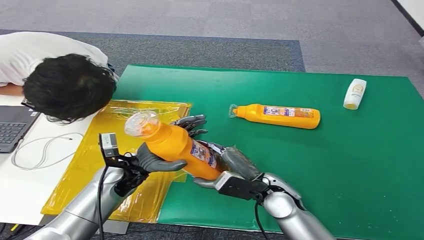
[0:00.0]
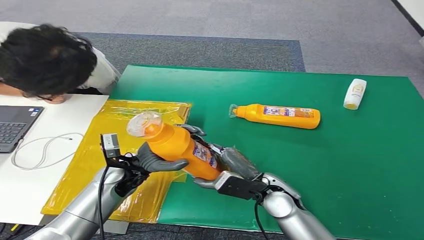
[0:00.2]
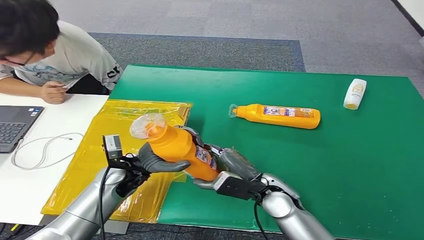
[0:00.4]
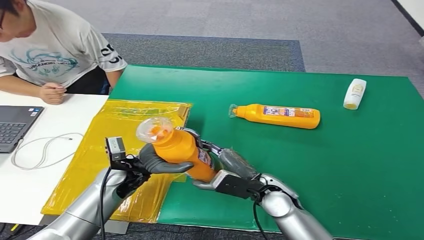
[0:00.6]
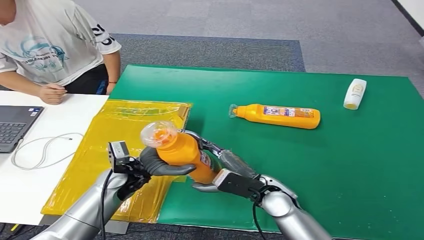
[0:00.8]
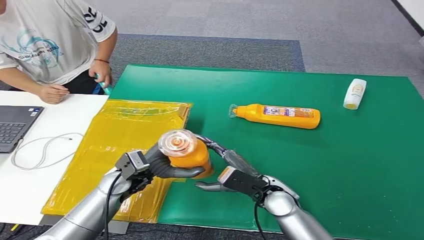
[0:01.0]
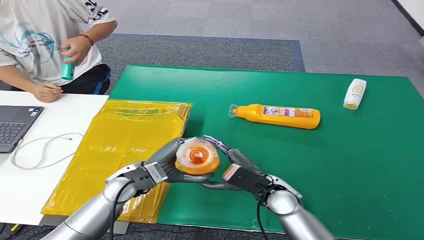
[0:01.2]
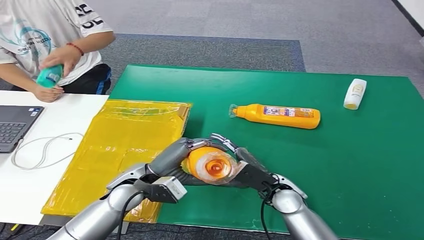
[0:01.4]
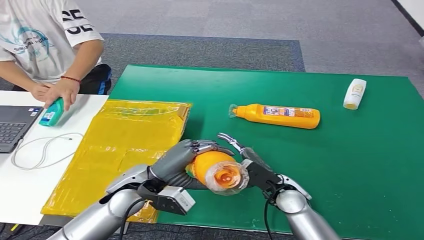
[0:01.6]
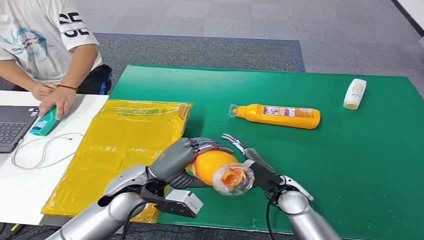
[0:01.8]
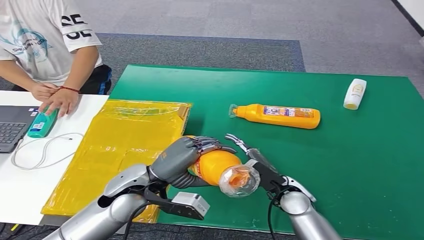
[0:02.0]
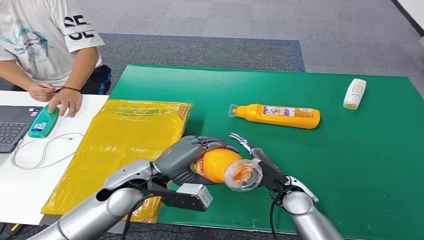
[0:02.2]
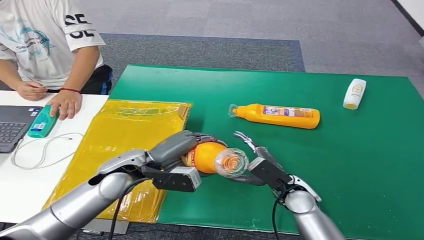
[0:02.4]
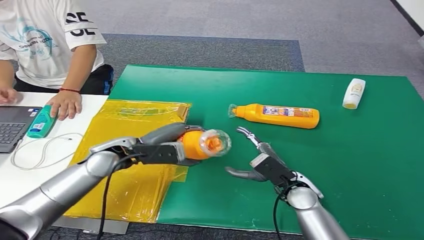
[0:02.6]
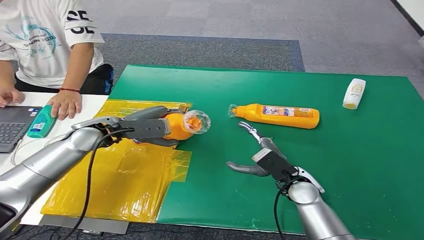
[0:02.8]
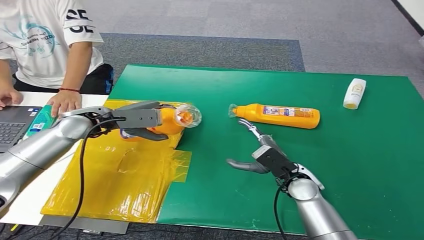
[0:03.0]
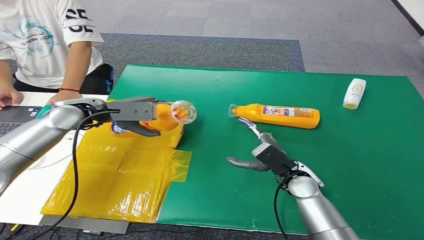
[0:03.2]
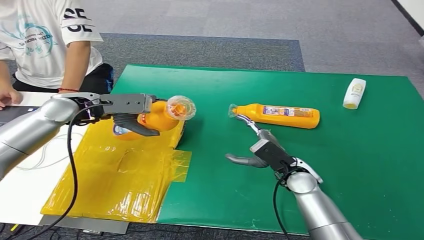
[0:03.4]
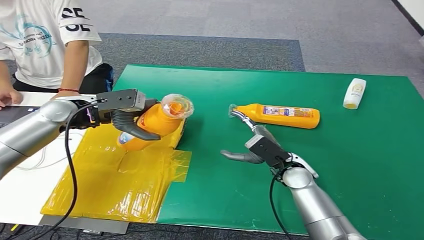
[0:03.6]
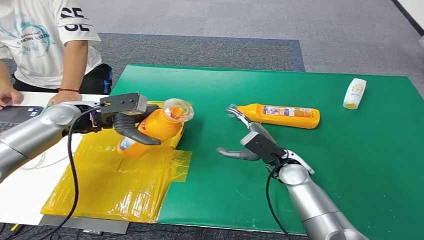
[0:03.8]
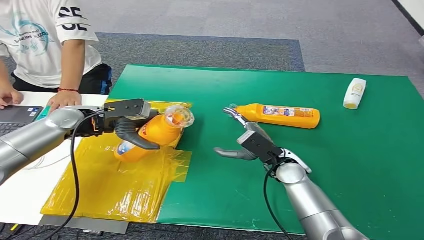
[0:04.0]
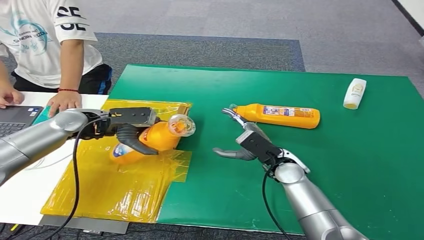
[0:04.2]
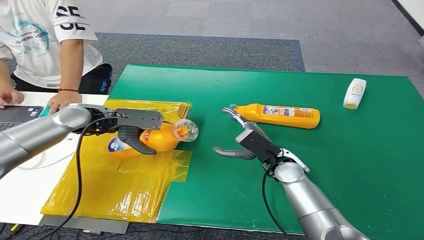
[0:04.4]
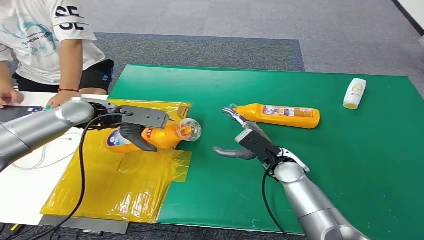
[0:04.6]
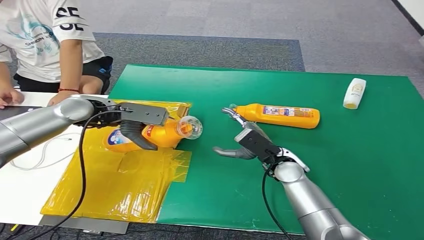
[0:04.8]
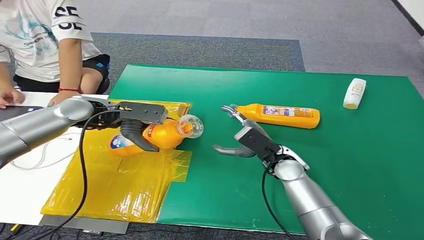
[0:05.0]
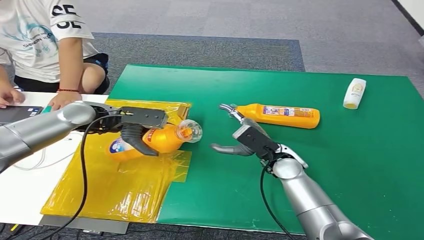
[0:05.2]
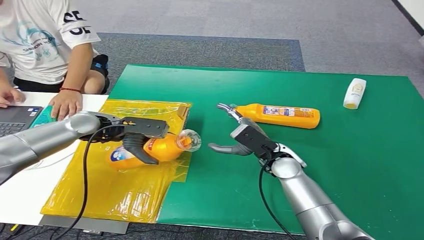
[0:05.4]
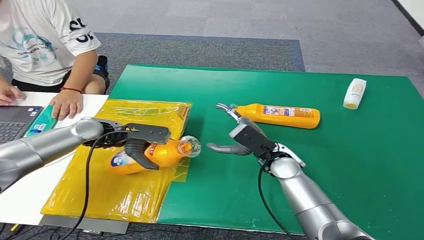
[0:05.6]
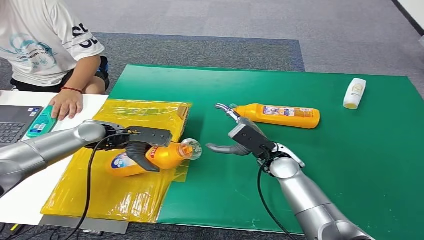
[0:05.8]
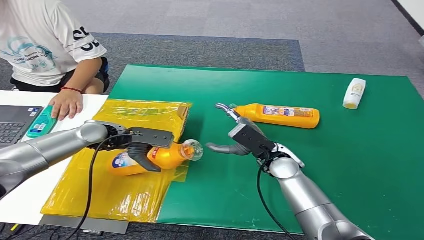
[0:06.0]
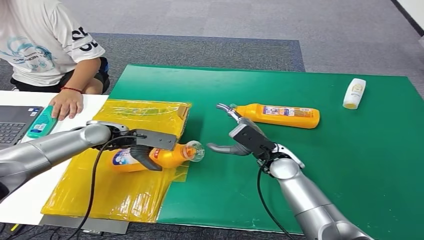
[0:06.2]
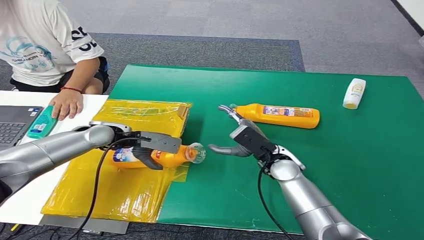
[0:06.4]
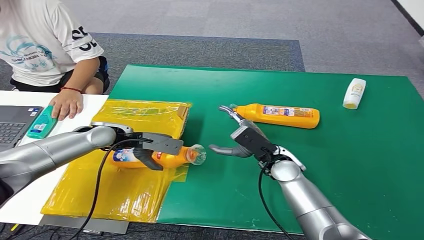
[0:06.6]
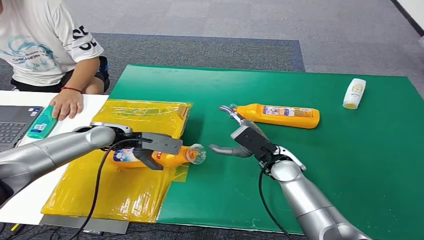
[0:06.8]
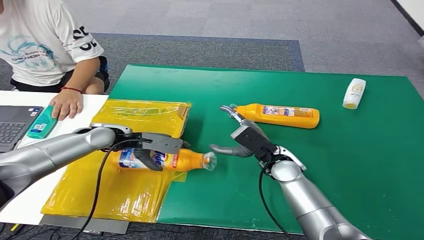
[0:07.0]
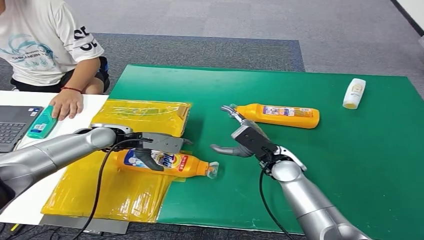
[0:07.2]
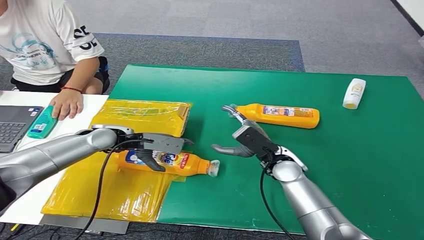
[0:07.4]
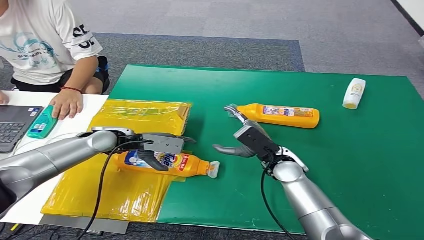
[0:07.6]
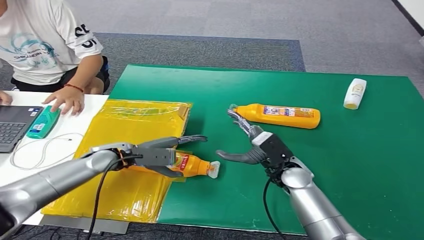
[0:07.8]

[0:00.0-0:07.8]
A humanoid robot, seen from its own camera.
Step, 0:00.0 to 0:07.8: Turn the bottle to the front side.
